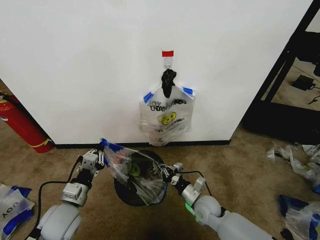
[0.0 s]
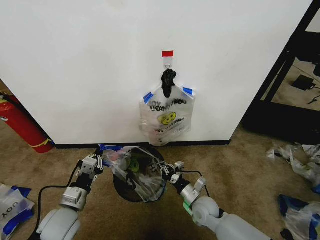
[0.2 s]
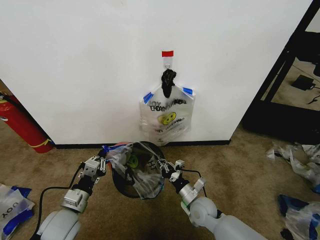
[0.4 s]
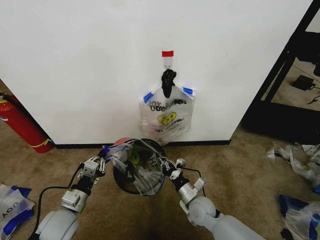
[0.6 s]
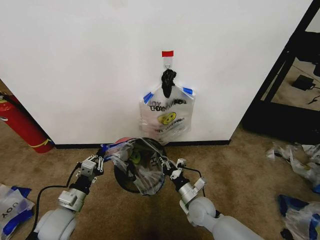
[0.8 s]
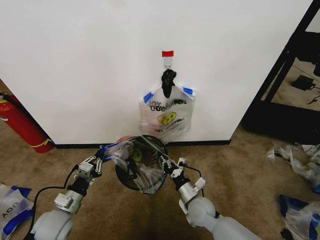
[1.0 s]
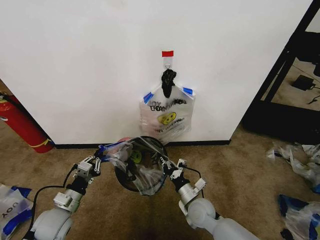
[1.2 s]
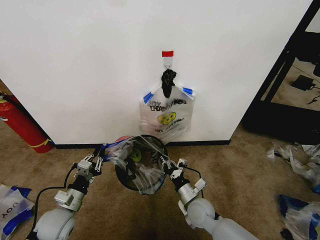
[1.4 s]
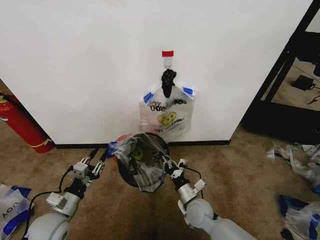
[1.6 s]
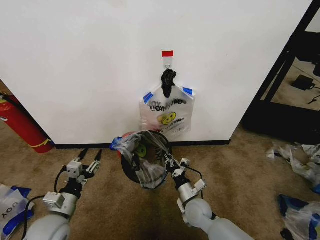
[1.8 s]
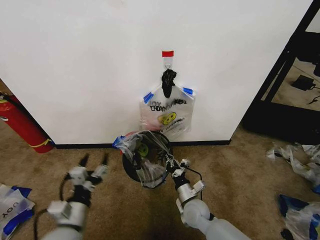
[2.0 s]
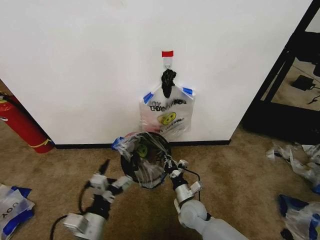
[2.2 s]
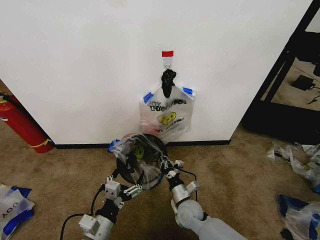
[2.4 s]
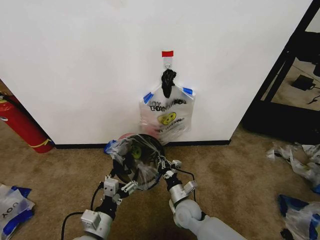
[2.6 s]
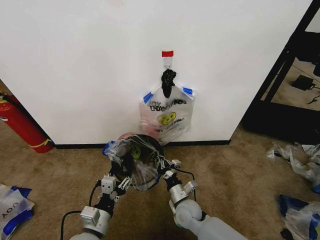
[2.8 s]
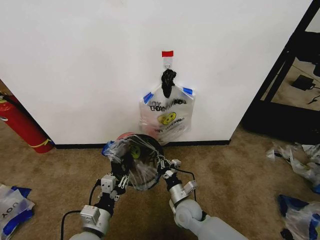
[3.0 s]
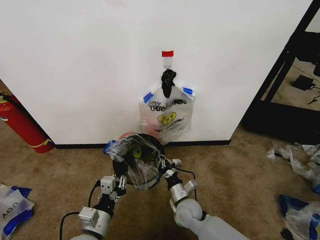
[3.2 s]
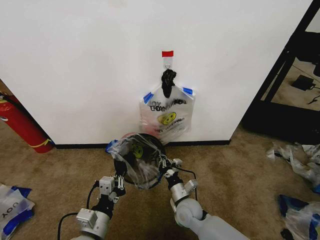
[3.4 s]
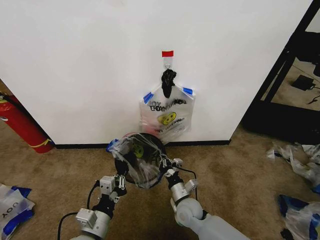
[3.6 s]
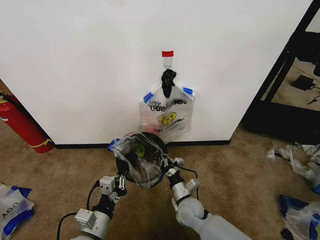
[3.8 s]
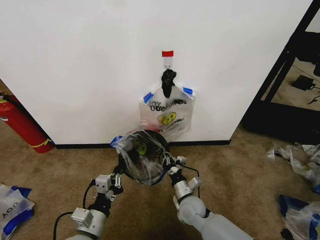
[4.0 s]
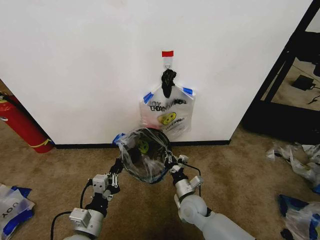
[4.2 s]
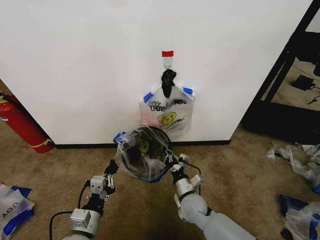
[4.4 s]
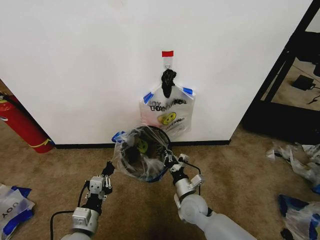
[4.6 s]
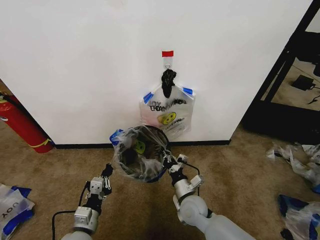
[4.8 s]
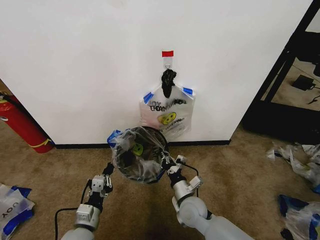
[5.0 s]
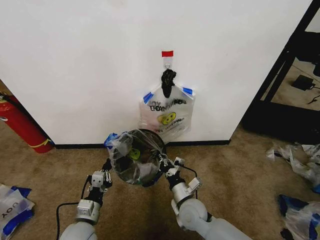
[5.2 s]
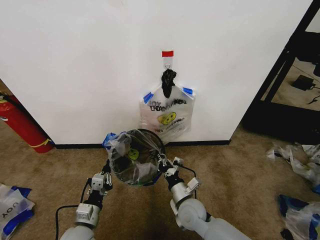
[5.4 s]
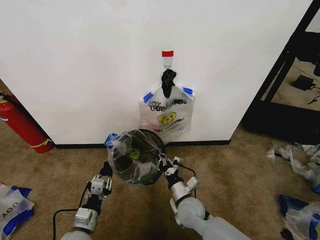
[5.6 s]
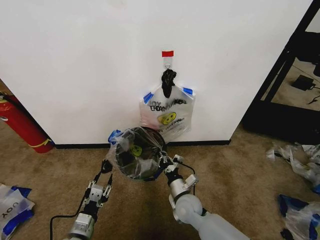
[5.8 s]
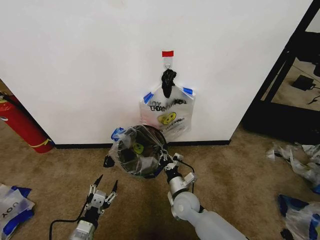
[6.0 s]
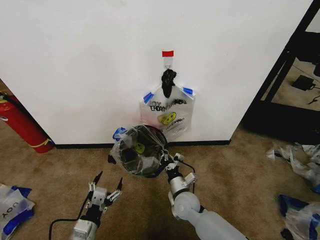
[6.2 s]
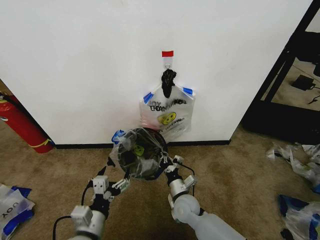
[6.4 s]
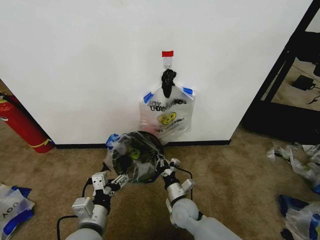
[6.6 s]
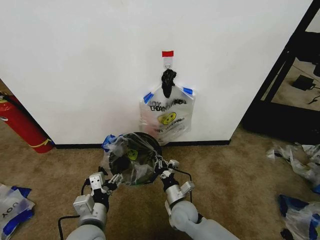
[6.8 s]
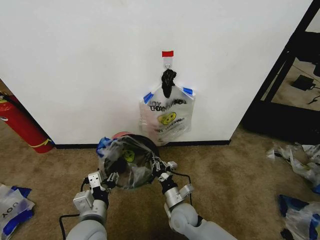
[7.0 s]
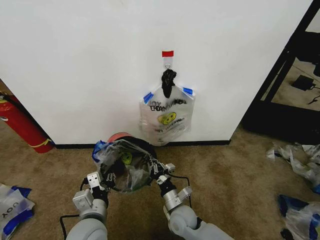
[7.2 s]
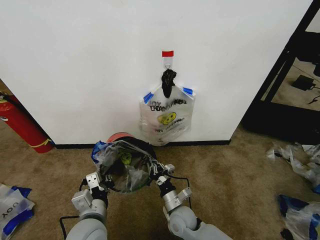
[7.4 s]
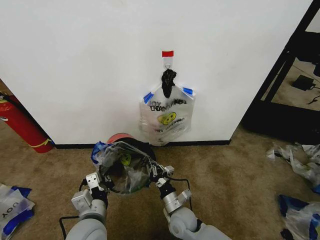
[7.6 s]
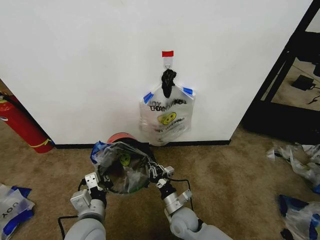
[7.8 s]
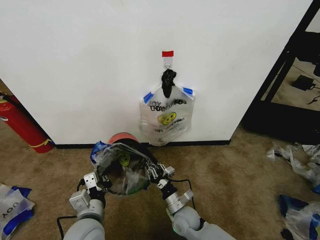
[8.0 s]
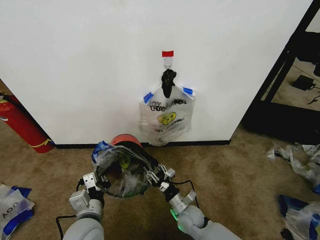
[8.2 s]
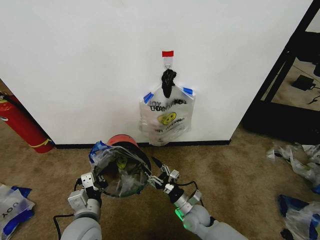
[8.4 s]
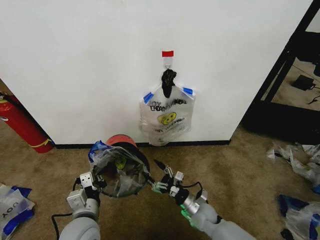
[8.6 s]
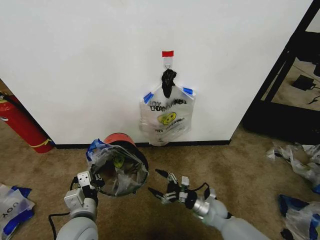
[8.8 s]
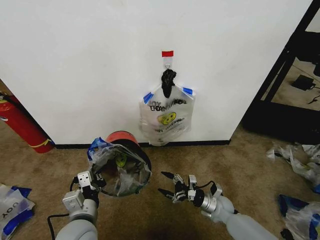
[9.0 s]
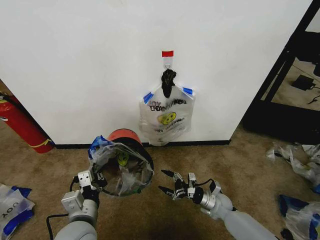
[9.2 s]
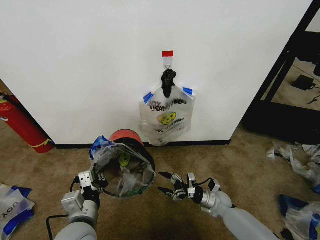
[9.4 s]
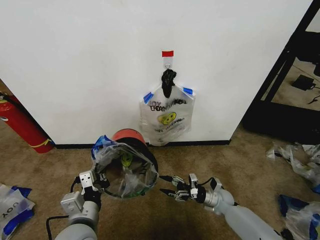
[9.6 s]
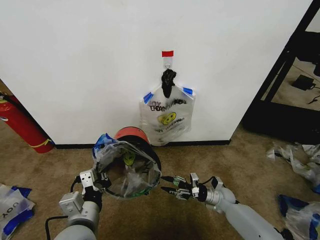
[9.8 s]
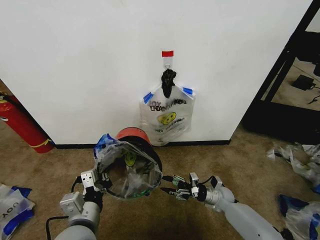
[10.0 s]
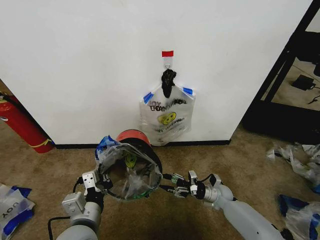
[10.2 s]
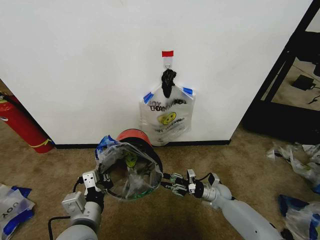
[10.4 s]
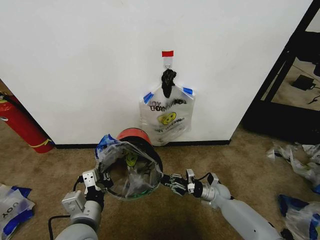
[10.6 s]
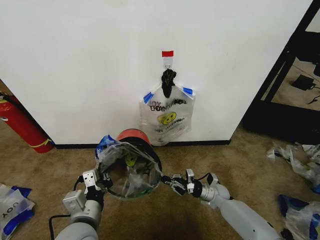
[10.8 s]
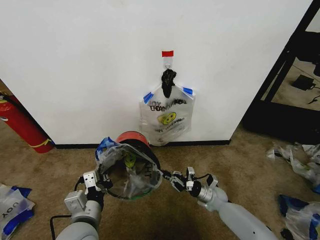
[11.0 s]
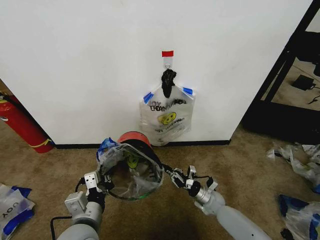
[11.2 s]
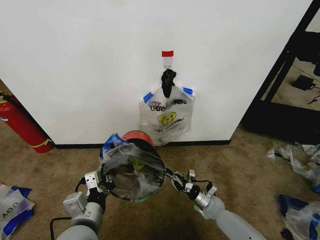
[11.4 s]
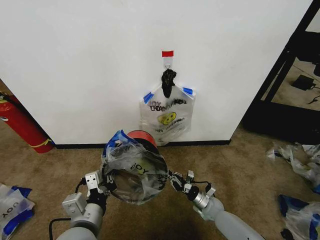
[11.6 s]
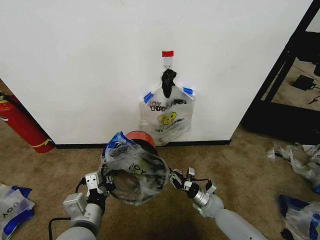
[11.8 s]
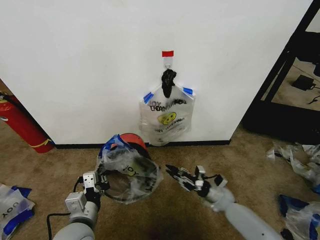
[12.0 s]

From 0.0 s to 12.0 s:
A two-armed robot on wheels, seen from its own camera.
Task of the whole recording: Pick up the garbage bag from the wall and place it over the trash bin.
From 0.0 s to 1.6 s: The left gripper moves approximately 5 cm.
From 1.6 s to 3.0 s: The left gripper is displaced to the right and backward by about 15 cm, and opens and closes again.
From 3.0 s to 4.4 s: The left gripper closes its fingers.
From 4.4 s to 6.0 s: The left gripper shifts roughly 5 cm downward, and opens its fingers.
From 6.0 s to 7.6 s: The right gripper ends up roughly 5 cm from where it was. Meanwhile the left gripper moves upward and to the right, approximately 15 cm, and closes up.
From 7.6 s to 9.0 s: The right gripper heads to the right, covering some 15 cm, and opens.
From 9.0 s to 10.4 s: The right gripper heads forward, covering about 5 cm, and closes.

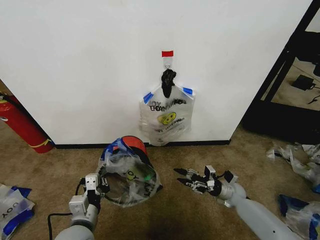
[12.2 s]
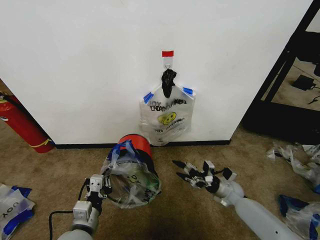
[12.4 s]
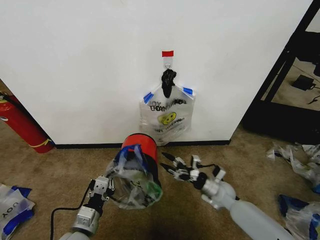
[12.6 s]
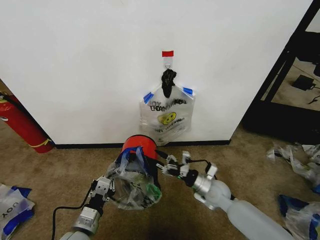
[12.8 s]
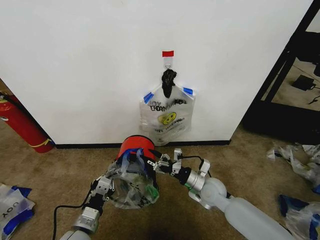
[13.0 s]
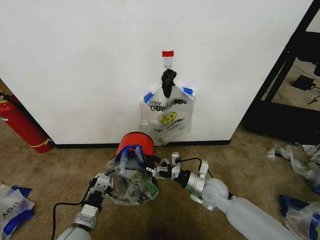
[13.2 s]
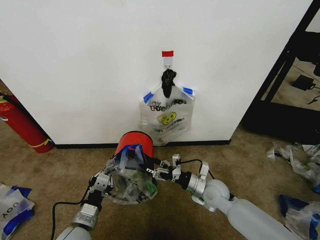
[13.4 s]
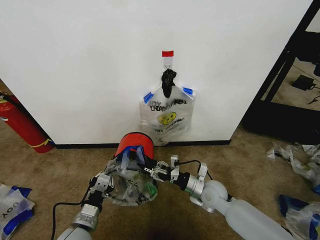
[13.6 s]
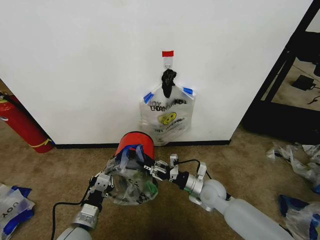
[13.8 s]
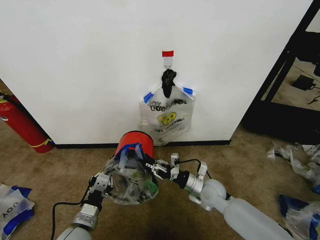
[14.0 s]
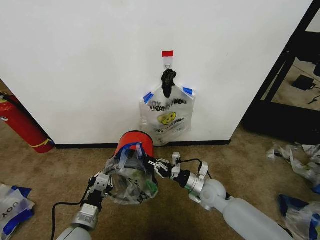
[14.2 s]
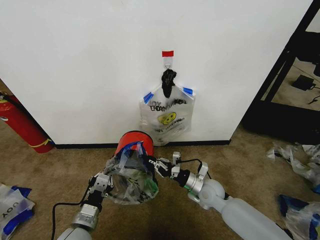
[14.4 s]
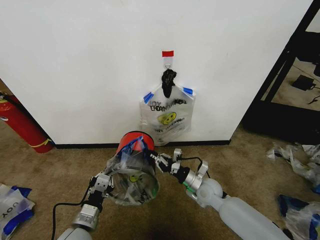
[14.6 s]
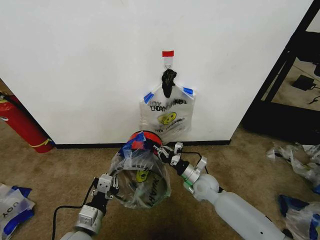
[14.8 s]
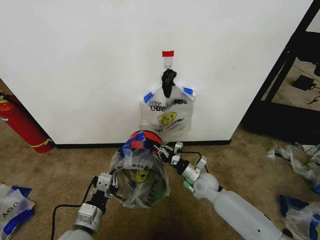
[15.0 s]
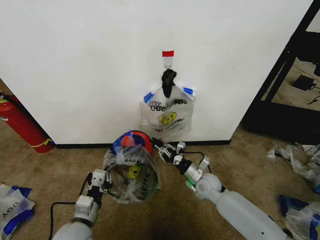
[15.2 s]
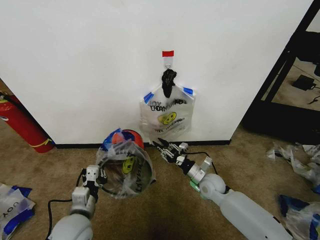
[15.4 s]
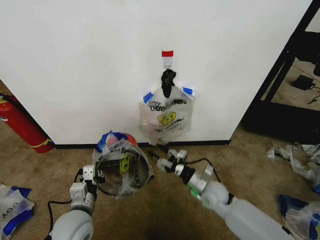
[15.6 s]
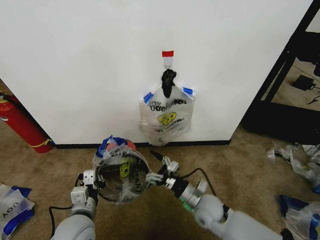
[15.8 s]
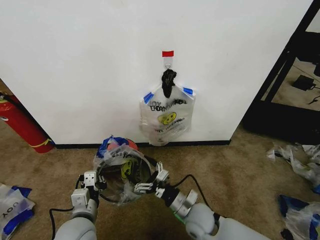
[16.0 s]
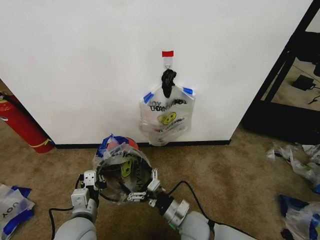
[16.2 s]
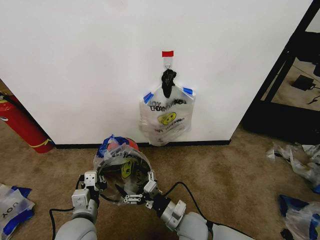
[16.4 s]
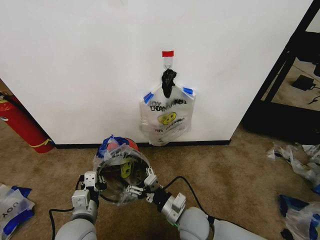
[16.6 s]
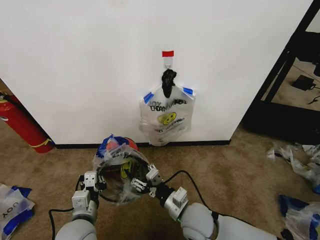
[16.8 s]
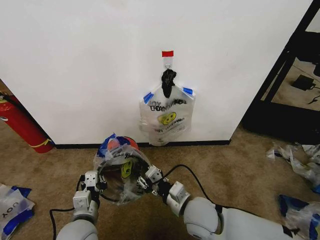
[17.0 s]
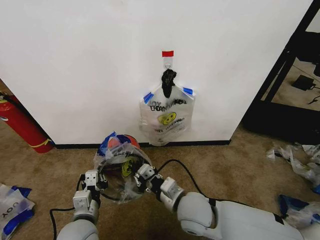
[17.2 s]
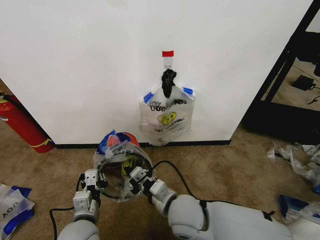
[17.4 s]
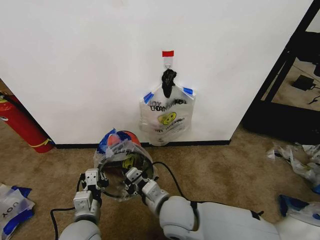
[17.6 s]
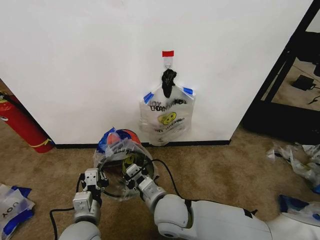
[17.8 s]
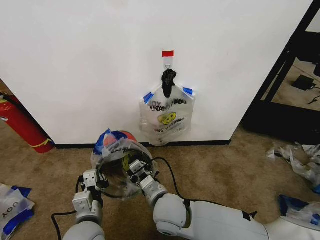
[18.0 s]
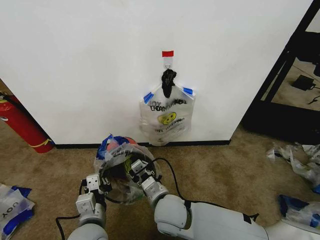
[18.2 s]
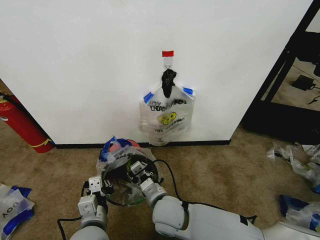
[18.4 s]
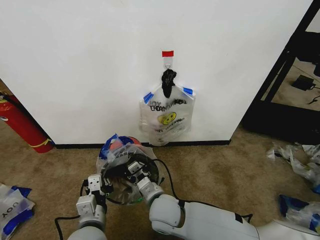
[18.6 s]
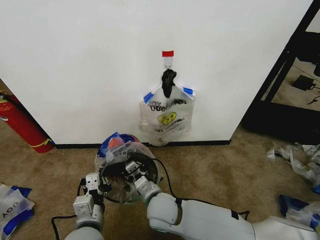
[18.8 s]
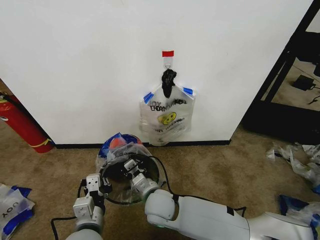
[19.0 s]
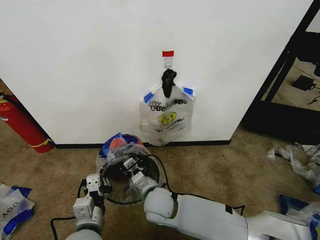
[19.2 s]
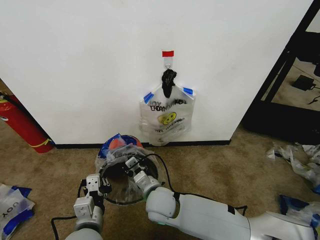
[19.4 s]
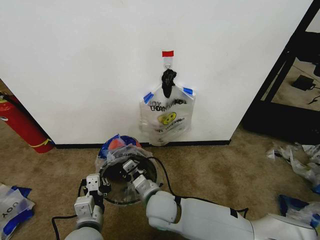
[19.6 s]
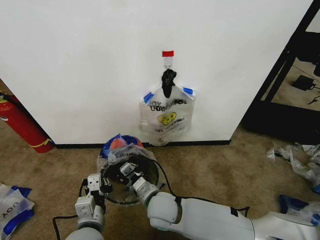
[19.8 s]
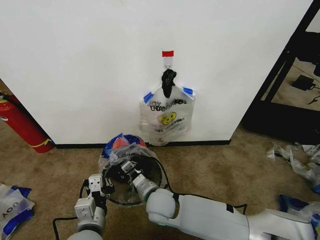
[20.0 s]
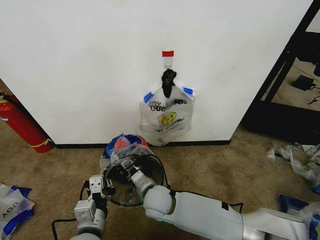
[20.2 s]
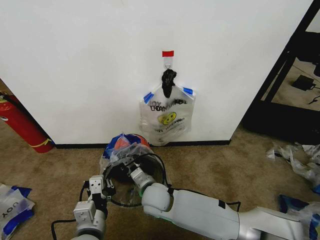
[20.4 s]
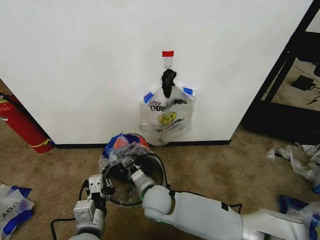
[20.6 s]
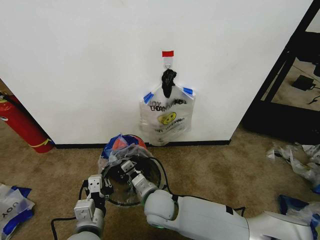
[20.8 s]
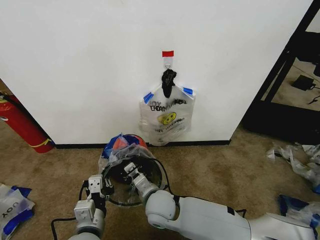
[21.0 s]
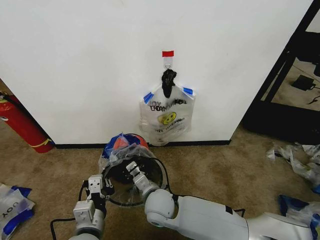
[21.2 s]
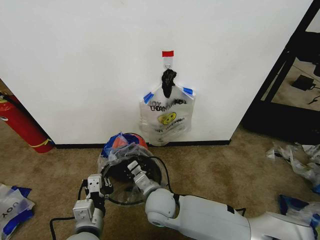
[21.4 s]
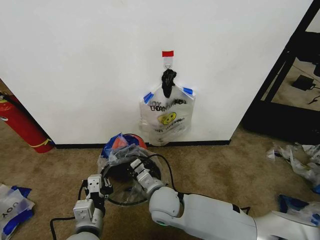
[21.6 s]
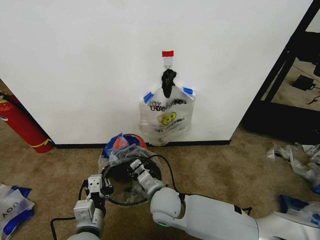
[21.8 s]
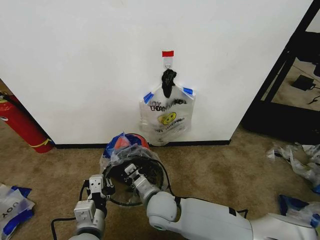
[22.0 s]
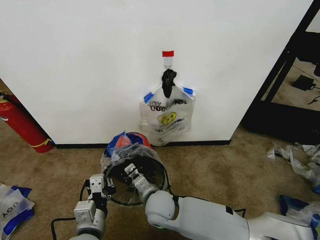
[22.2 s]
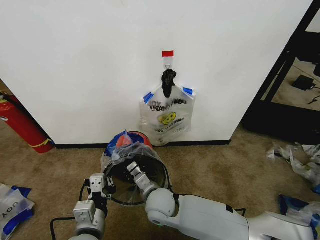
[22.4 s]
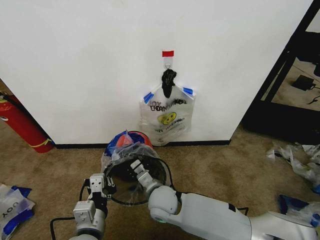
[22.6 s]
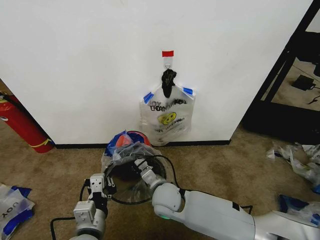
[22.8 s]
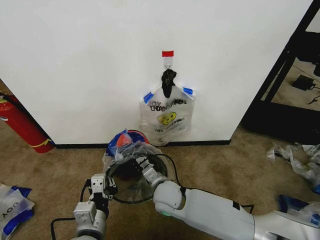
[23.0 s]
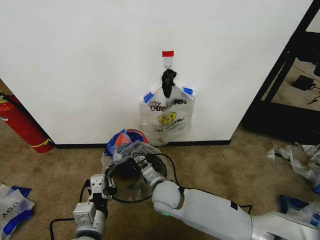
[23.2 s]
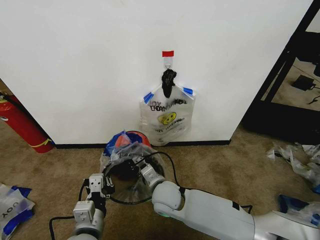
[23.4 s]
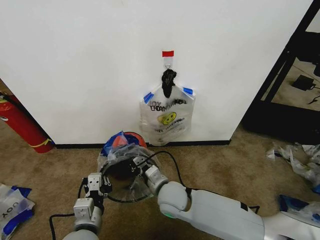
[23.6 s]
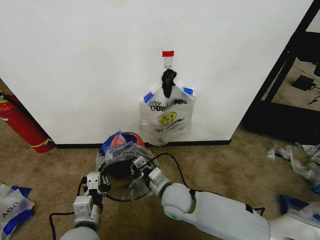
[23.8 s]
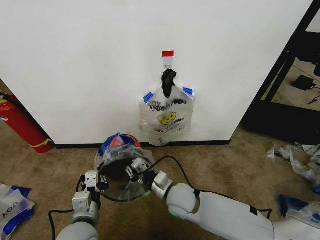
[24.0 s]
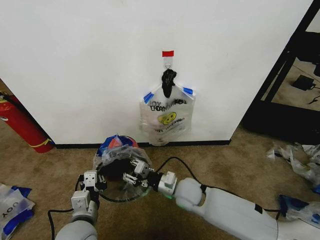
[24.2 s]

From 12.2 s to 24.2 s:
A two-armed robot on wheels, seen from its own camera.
Task of the whole recording: Pick up the garbage bag from the wall and place it over the trash bin.
From 12.2 s to 13.8 s: The right gripper shifts roughly 15 cm to the left and upward, and opens, then closes once more.
From 15.2 s to 16.6 s: The right gripper is displaced backward and to the left by some 15 cm, and opens its fingers.
From 16.6 s to 18.2 s: The right gripper is displaced to the left and upward by roughly 10 cm, and closes.
From 18.2 s to 19.8 s: There are only small adjustments of the grippers.
From 19.8 s to 22.6 s: There are only small adjustments of the grippers.
From 22.6 s to 24.2 s: The left gripper changes place by about 5 cm. The right gripper shifts roughly 10 cm to the right, and opens.
